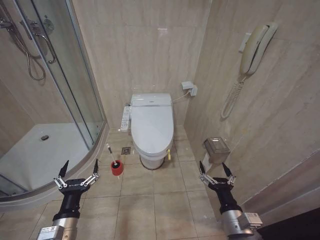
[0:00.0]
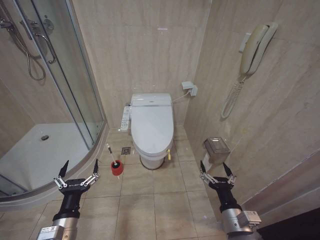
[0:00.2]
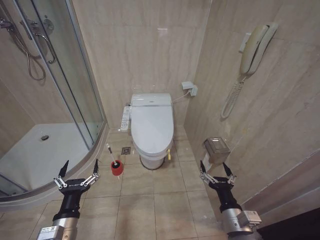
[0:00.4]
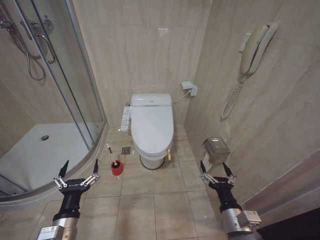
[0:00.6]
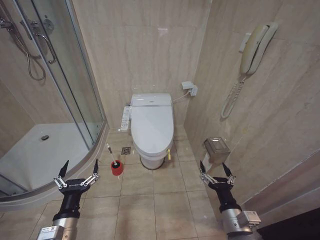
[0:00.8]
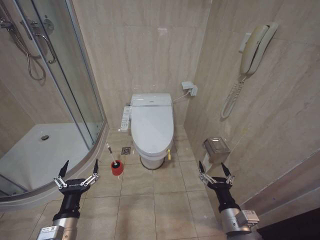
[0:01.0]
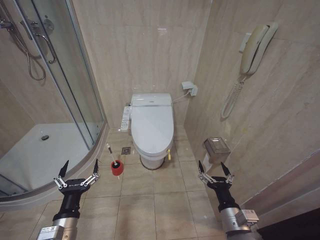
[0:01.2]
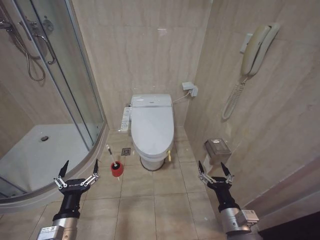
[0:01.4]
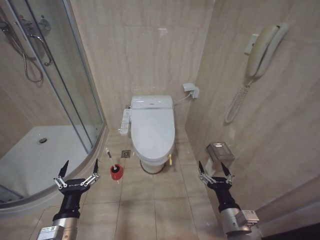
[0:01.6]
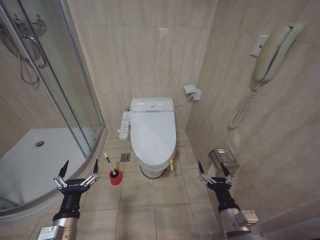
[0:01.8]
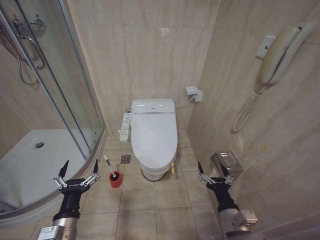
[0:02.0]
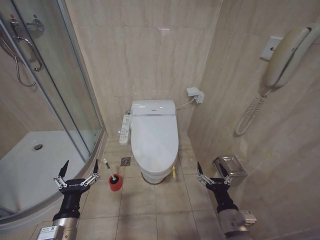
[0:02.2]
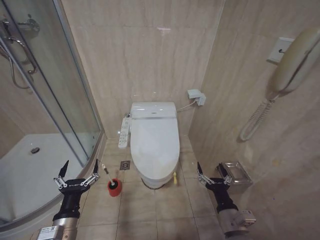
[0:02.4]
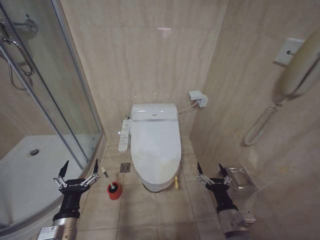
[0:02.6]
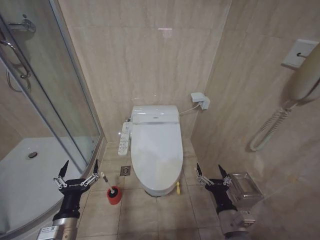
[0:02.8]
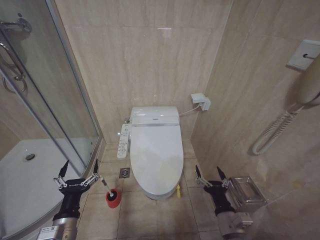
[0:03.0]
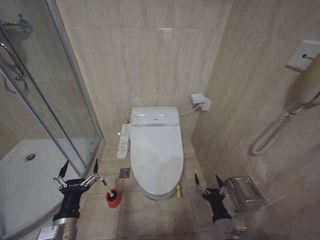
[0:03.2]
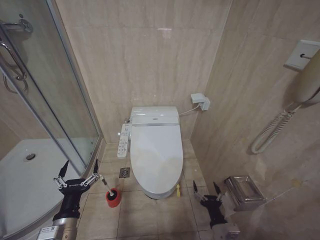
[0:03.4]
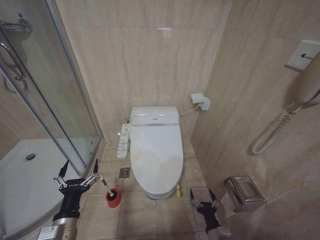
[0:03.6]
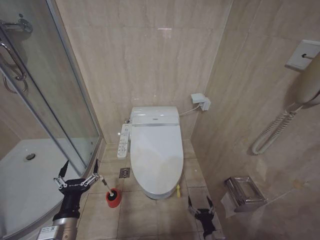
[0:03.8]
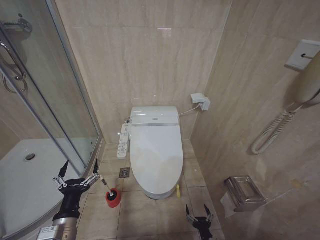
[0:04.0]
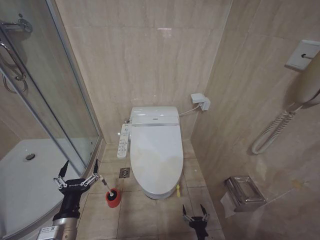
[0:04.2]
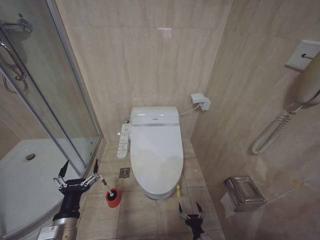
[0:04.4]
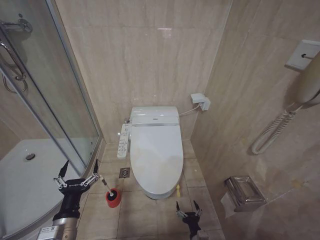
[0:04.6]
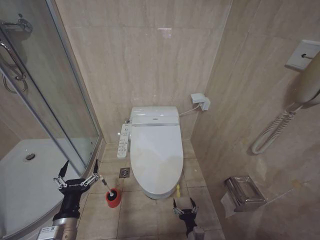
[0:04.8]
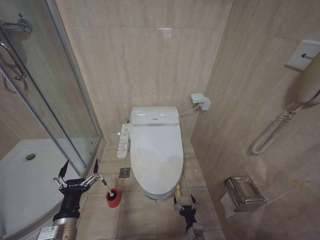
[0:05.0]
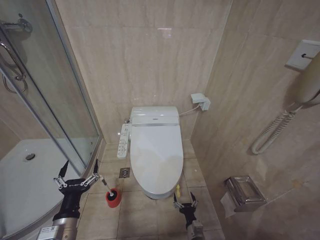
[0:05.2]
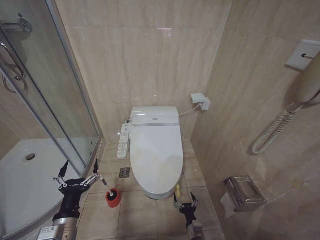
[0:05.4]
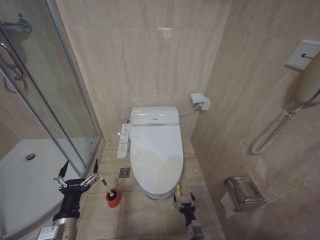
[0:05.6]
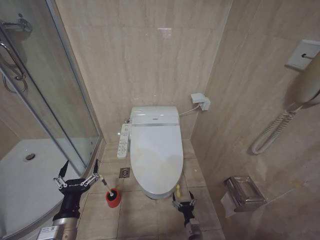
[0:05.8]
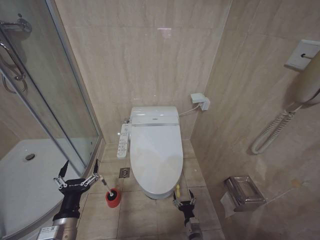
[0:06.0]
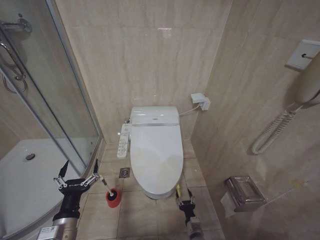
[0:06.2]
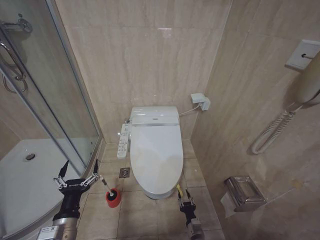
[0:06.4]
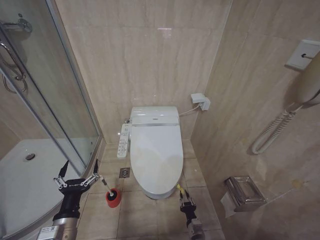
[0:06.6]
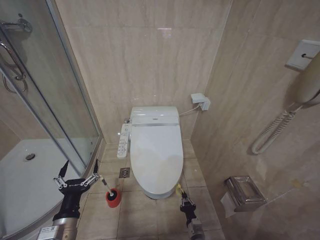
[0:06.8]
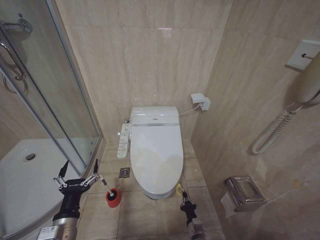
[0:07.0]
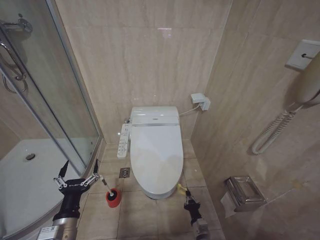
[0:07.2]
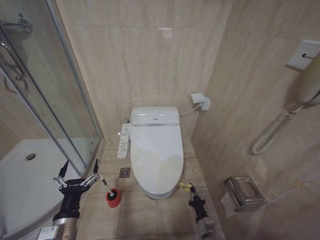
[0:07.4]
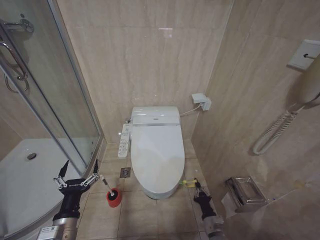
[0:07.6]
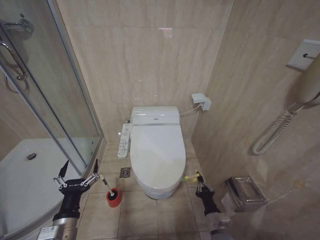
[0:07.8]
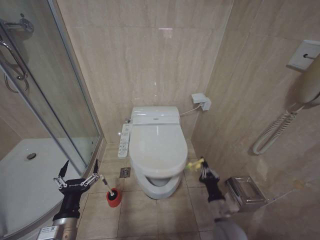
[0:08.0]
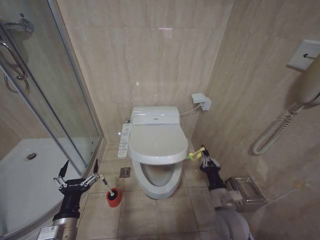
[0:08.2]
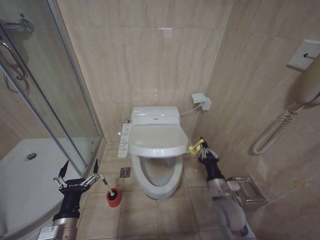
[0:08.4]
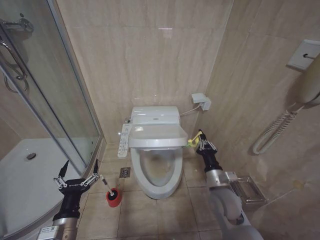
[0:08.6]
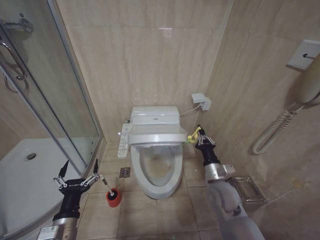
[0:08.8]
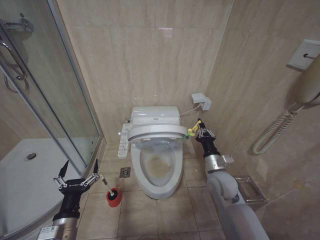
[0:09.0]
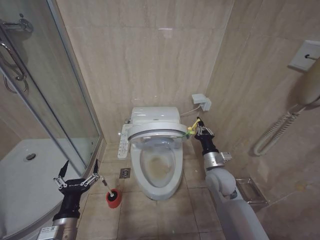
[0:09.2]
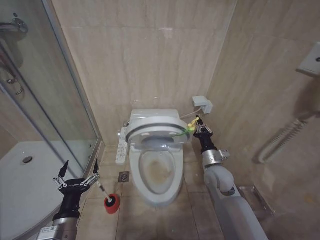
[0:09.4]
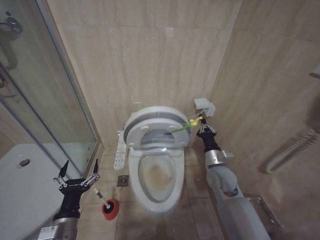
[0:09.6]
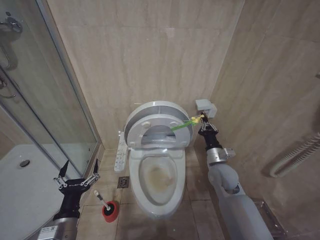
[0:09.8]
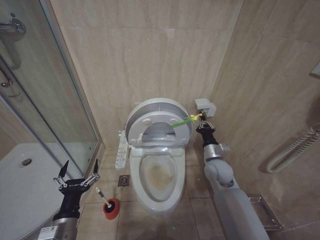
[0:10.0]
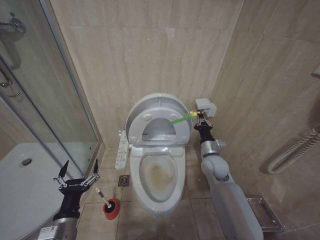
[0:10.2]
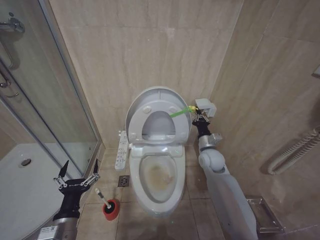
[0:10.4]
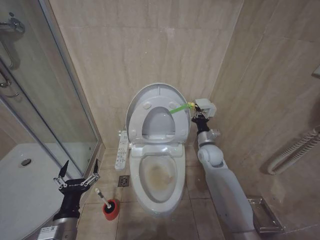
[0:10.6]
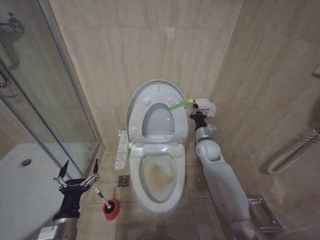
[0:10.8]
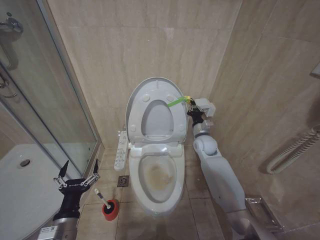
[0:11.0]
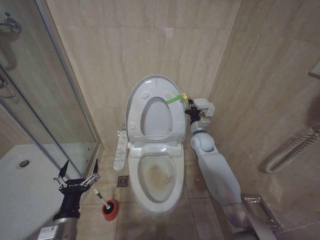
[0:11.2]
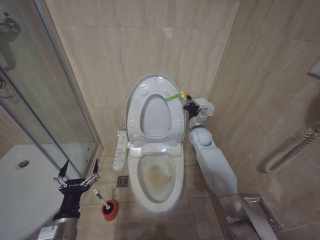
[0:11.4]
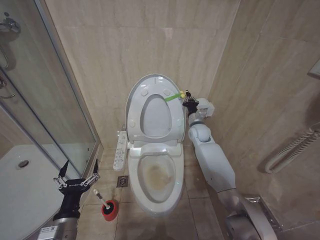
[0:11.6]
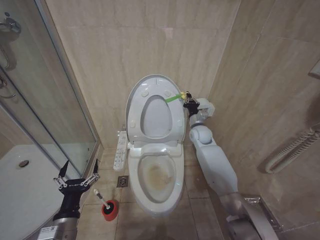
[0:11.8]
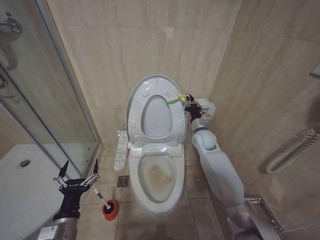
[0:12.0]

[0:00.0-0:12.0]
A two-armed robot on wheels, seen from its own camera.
Task of the whole recording: Open the toilet lid, clean the toilet bowl with a toilet brush, close the toilet lid, and flush.
0:03.0 to 0:04.4: The right gripper moves downward, approximately 25 cm.
0:04.4 to 0:06.0: The right gripper shifts some 5 cm forward.
0:06.0 to 0:07.6: The right gripper heads upward and to the right, covering approximately 10 cm, and closes.
0:07.6 to 0:09.0: The right gripper moves upward and forward, some 30 cm.
0:09.0 to 0:10.4: The right gripper moves forward, some 10 cm.
0:10.4 to 0:12.0: The right gripper shifts approximately 10 cm forward.

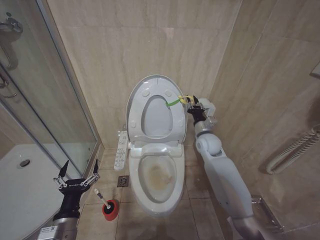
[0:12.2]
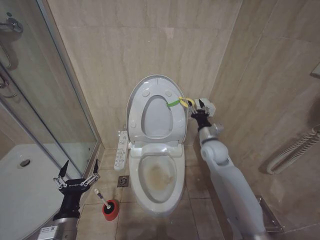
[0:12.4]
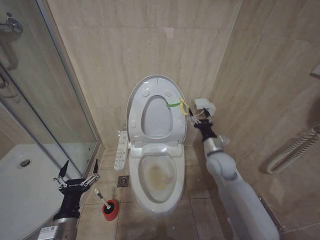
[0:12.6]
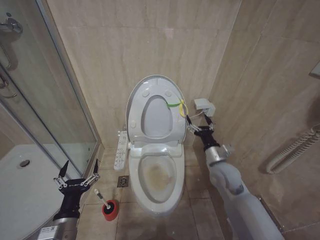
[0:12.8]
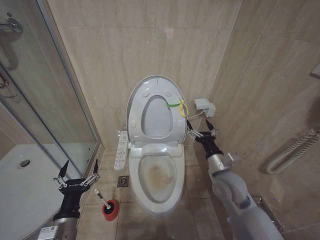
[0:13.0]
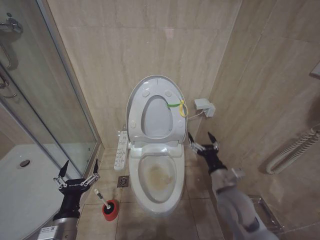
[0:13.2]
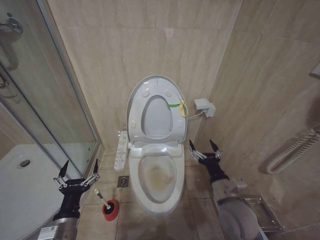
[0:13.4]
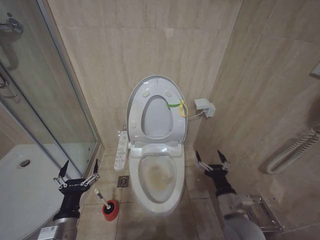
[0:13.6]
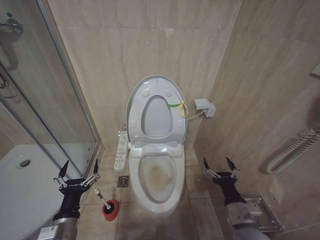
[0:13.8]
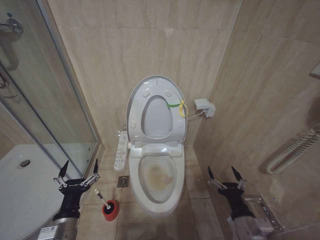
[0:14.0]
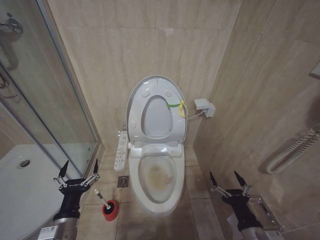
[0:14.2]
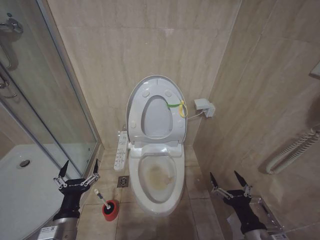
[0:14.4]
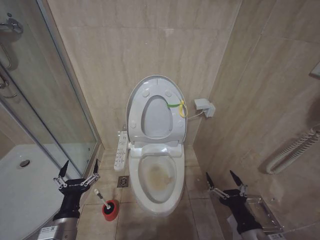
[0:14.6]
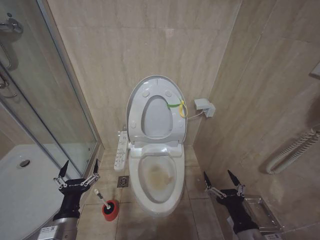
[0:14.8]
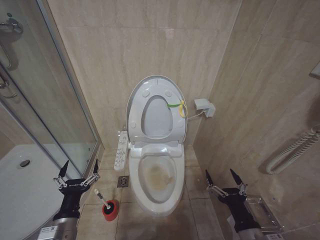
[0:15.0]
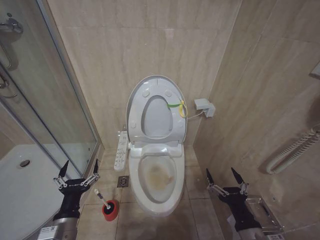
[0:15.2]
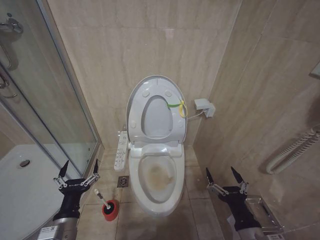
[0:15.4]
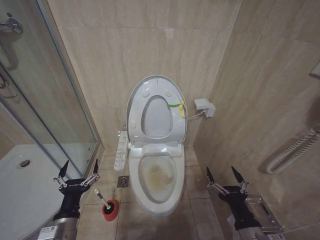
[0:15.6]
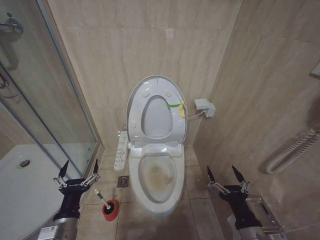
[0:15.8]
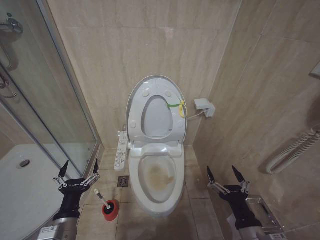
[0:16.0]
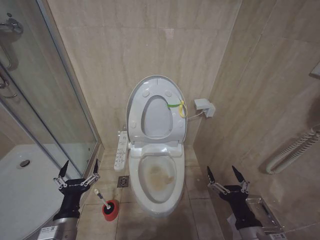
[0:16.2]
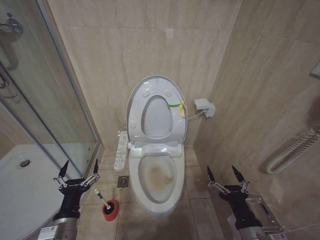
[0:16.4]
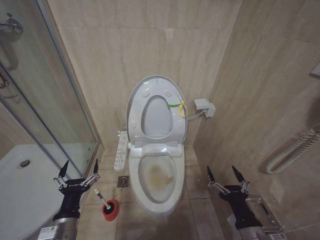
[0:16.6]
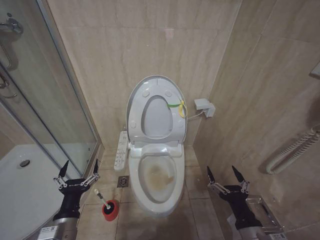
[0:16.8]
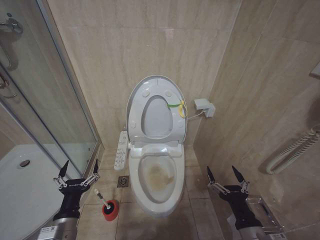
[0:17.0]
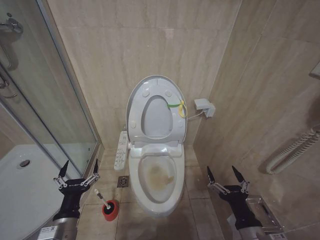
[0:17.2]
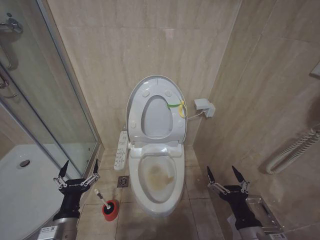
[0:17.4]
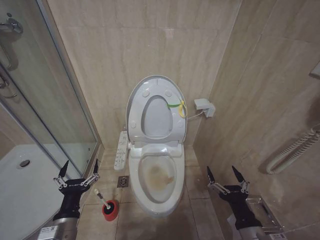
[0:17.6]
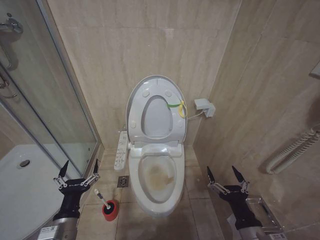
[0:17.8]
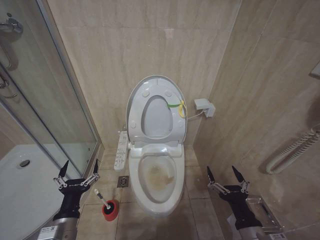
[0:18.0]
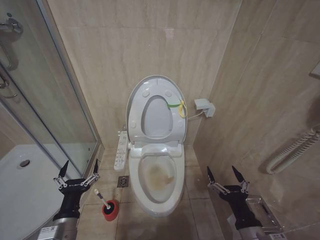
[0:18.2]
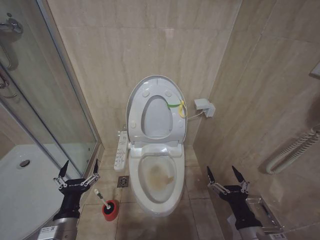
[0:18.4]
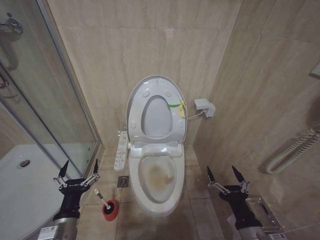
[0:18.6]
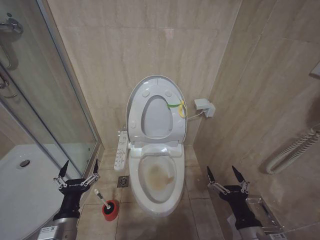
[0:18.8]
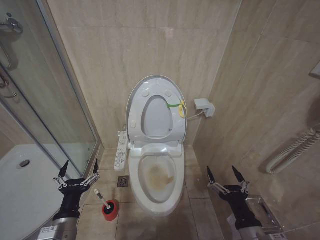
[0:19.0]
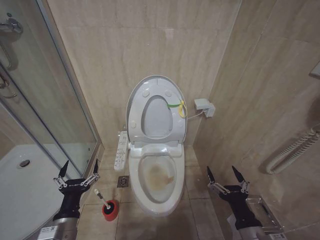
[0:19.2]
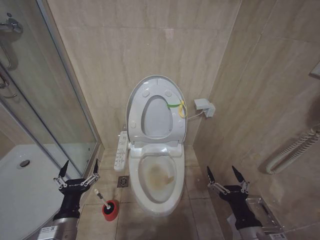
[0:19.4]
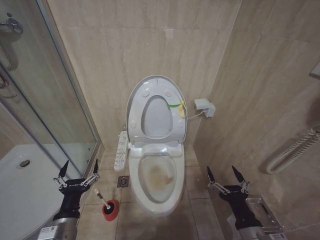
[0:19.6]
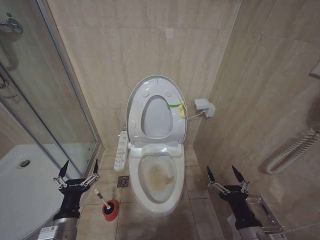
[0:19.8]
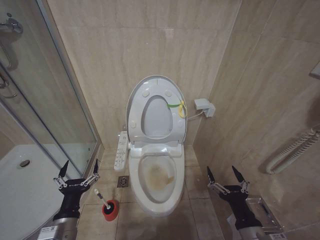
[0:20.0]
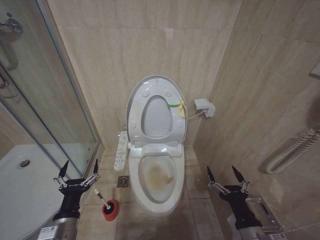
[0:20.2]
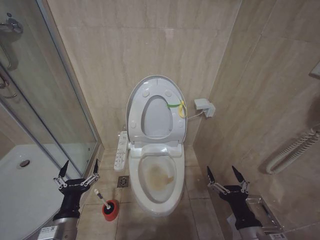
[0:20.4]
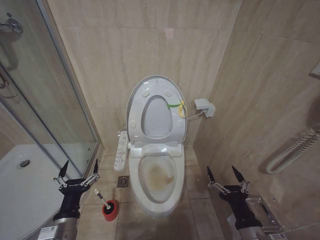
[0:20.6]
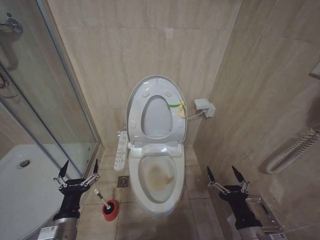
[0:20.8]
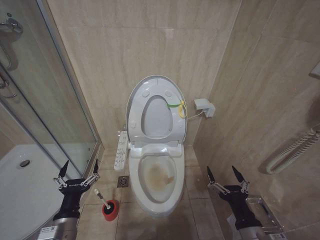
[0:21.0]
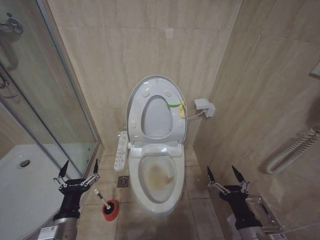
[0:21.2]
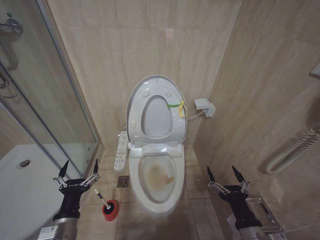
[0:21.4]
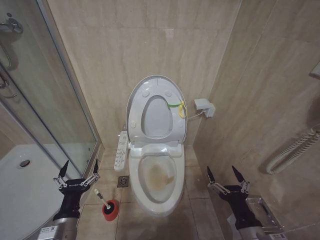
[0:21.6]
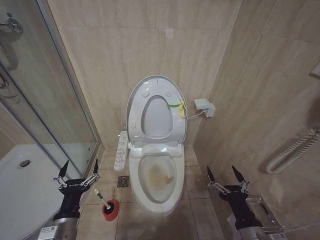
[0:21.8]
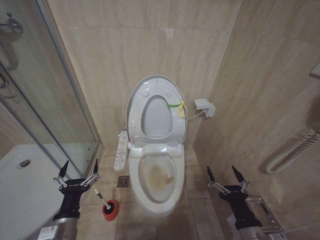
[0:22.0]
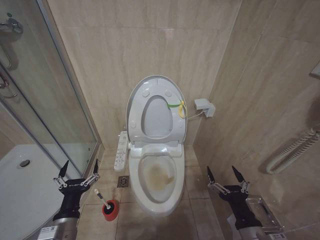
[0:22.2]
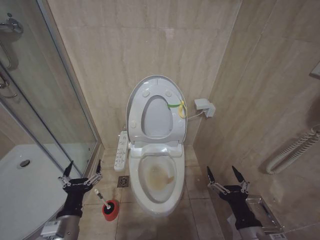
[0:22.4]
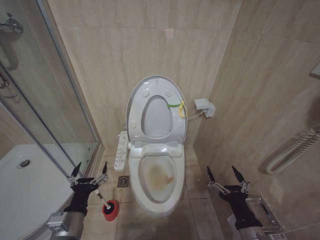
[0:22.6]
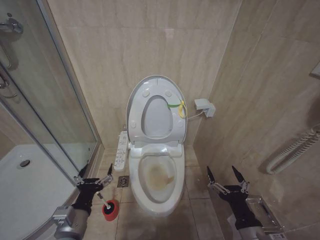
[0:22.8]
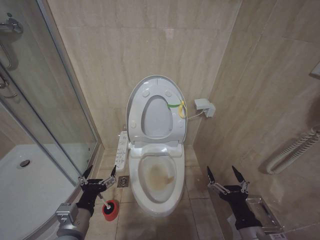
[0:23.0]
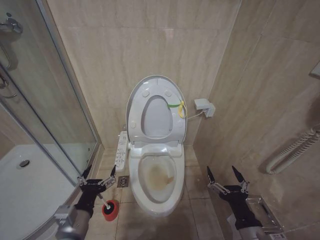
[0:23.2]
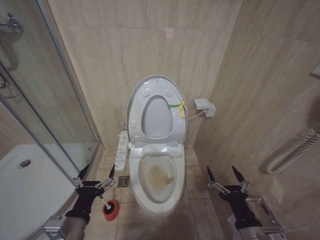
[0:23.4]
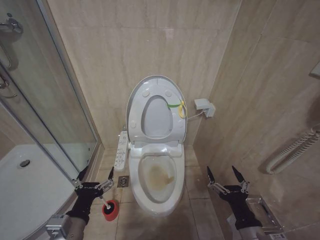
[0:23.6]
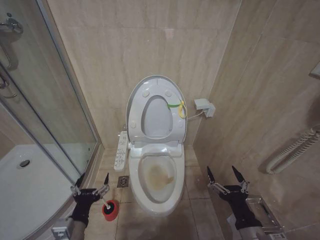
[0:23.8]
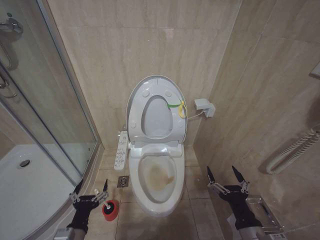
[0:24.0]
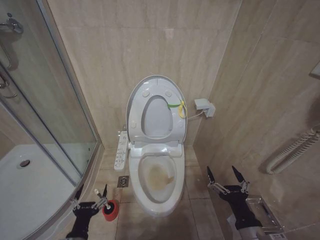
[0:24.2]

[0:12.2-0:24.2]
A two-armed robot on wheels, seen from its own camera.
Task of the whole recording: Open the toilet lid, clean the toilet bowl with a toilet brush, close the toilet lid, and flush.
0:12.2 to 0:13.8: The right gripper heads backward, covering some 30 cm, and opens.
0:13.8 to 0:15.2: The right gripper shifts roughly 10 cm backward.
0:15.2 to 0:21.2: Neither gripper changes place.
0:21.2 to 0:22.6: The grippers stay close to where they were, moving slightly.
0:22.6 to 0:24.2: The left gripper travels downward by approximately 10 cm.
